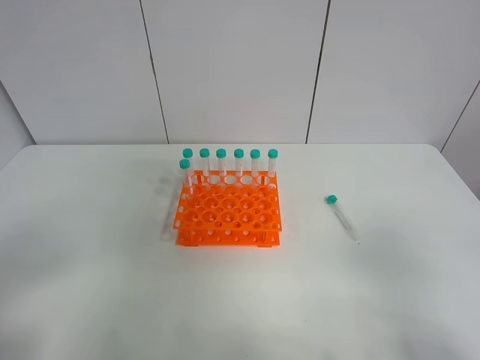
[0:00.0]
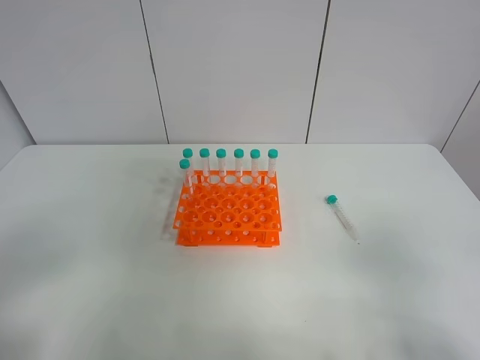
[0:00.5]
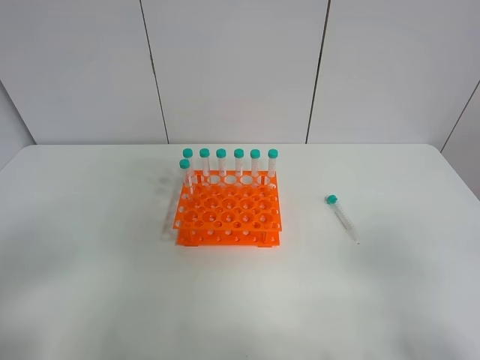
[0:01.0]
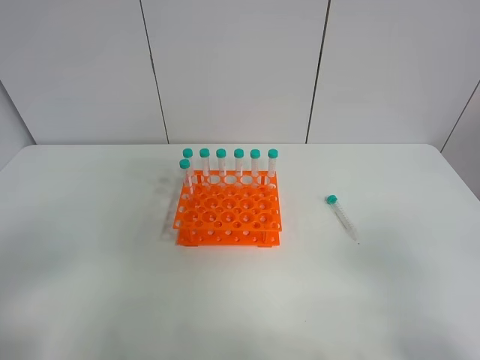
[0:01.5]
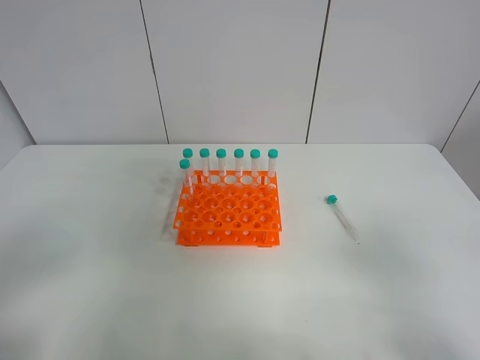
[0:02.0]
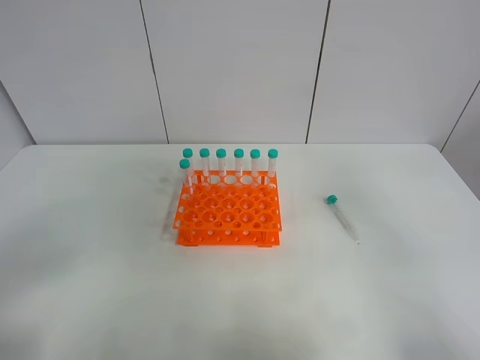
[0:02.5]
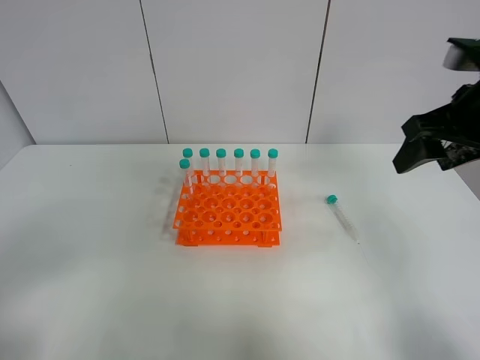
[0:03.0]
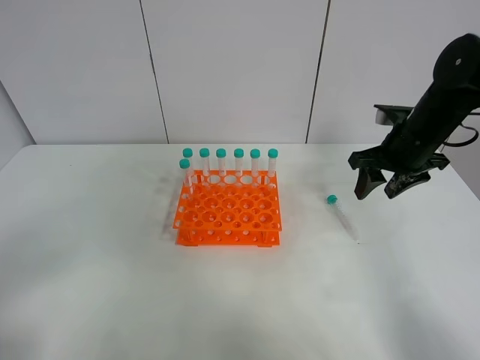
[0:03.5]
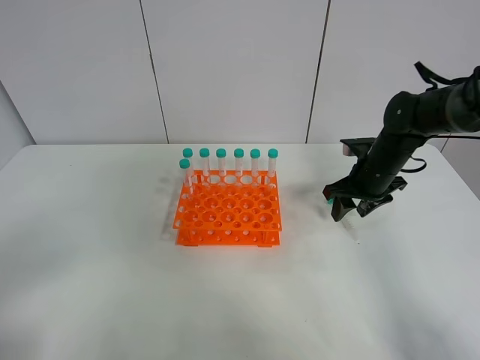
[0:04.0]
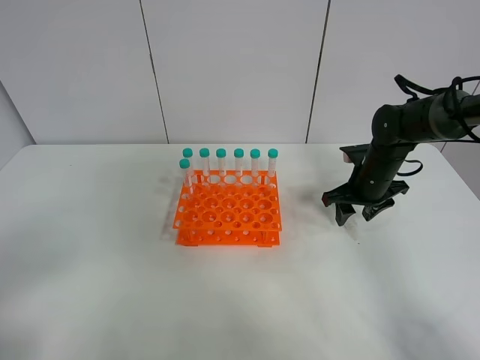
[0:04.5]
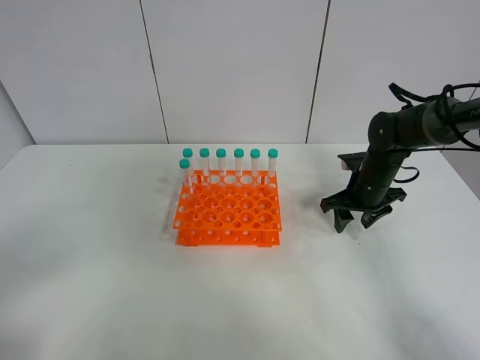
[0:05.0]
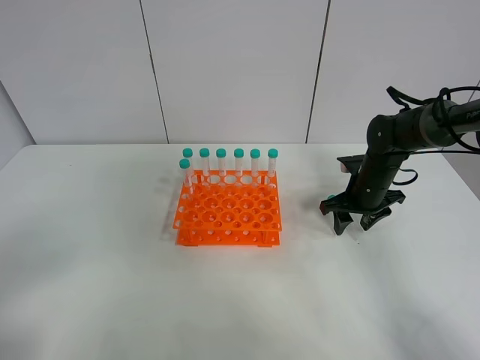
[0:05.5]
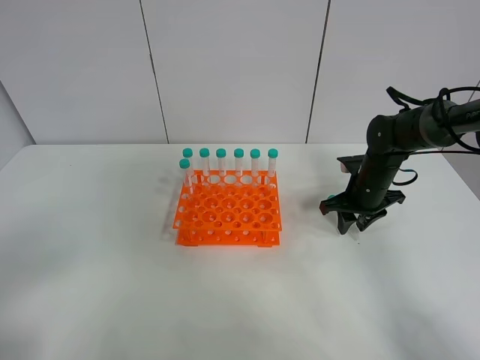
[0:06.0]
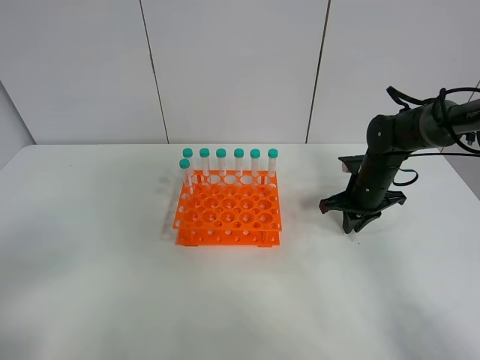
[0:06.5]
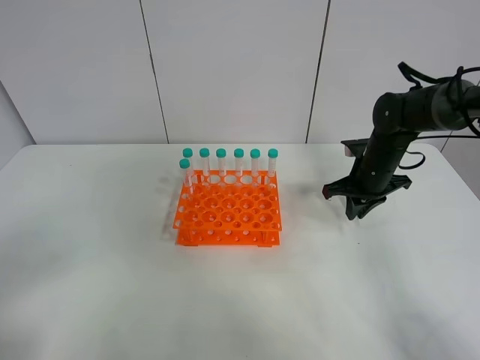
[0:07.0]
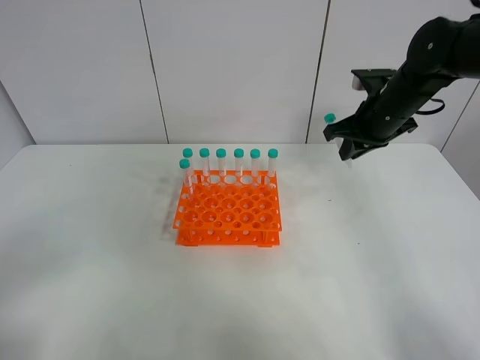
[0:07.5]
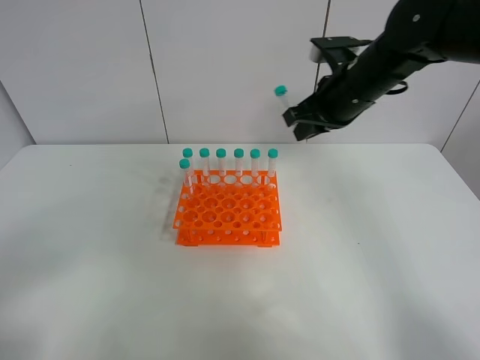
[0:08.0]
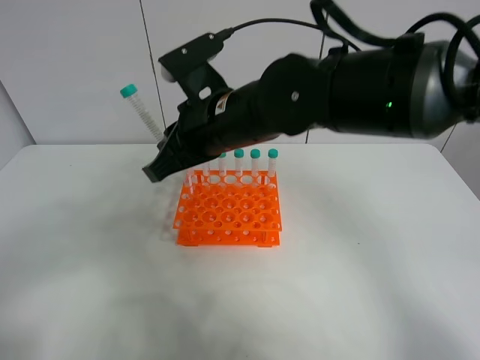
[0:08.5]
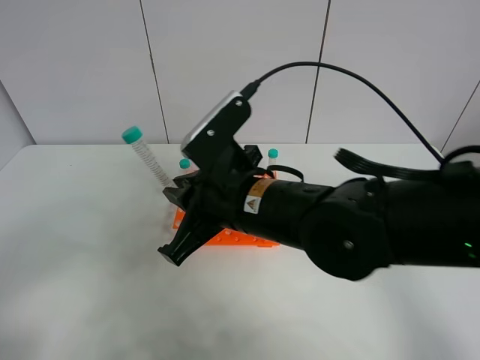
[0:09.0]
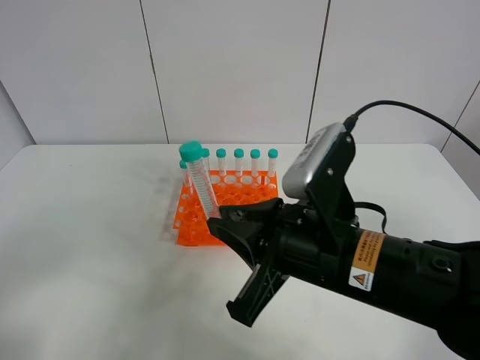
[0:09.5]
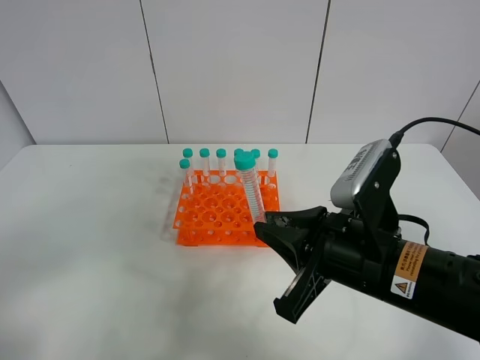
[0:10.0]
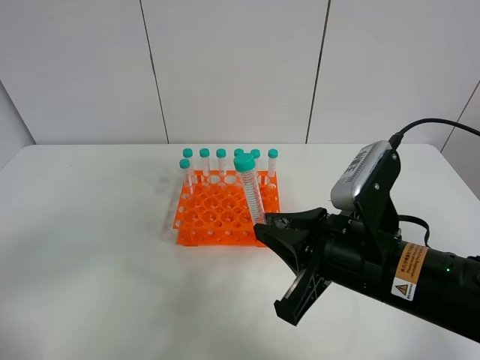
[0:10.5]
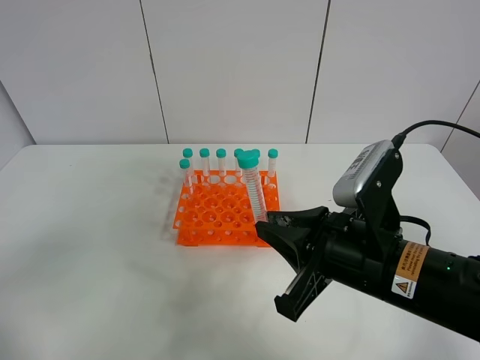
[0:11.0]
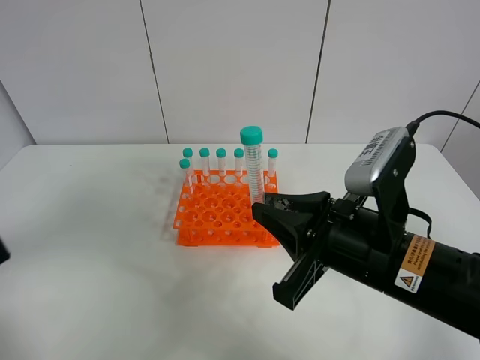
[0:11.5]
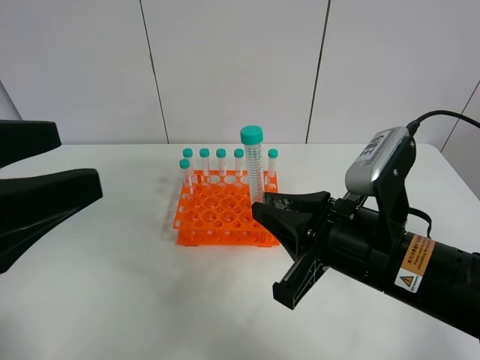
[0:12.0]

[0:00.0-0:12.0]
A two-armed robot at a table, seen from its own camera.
Task of the whole recording: Put the test tube on the table back onto the test tube rack.
Step, 0:00.0 to 0:06.0: Pick up the test tube with the right gripper.
0:02.0 to 0:04.0: The right gripper shifts some 40 cm forward.
0:04.0 to 0:06.0: The right gripper closes.
0:06.0 to 0:08.0: The right gripper travels upward and to the left by some 20 cm.
0:08.0 to 0:10.0: The right gripper goes approximately 20 cm backward.
0:10.0 to 0:12.0: The left gripper shifts roughly 15 cm forward, to the right and upward.

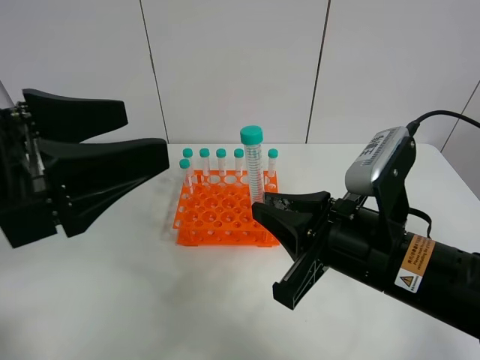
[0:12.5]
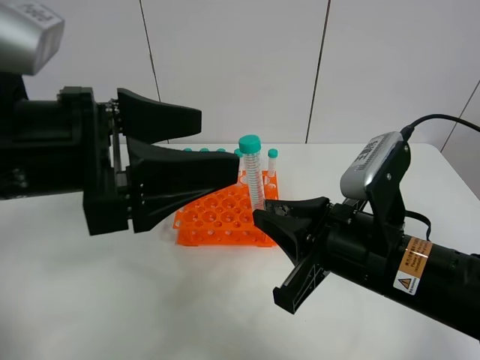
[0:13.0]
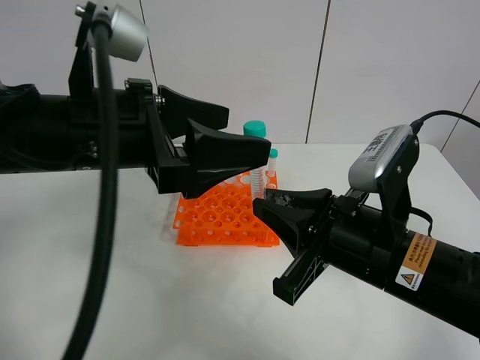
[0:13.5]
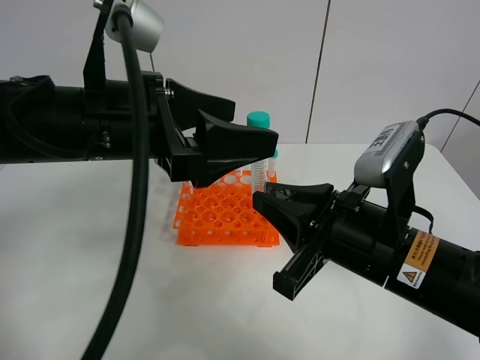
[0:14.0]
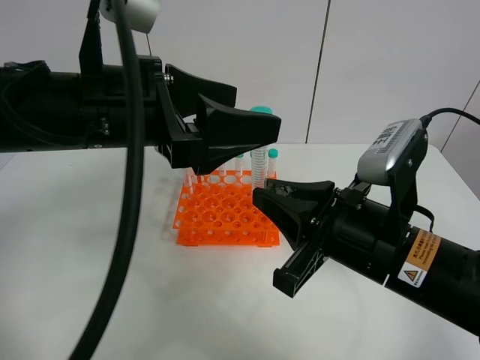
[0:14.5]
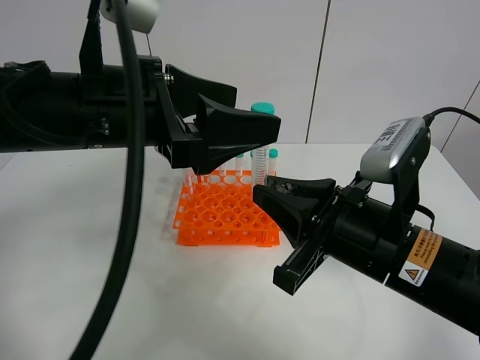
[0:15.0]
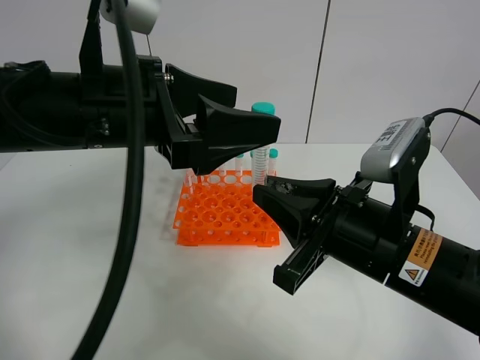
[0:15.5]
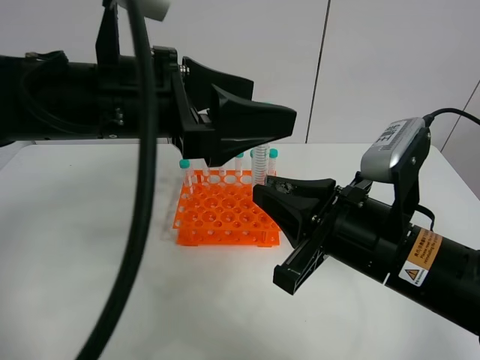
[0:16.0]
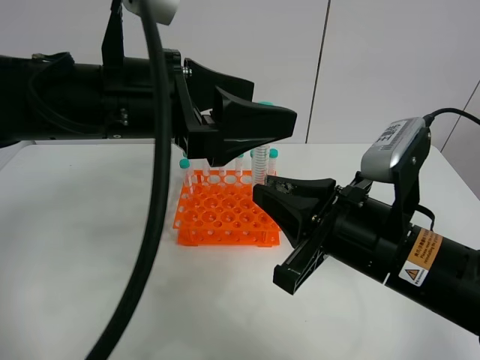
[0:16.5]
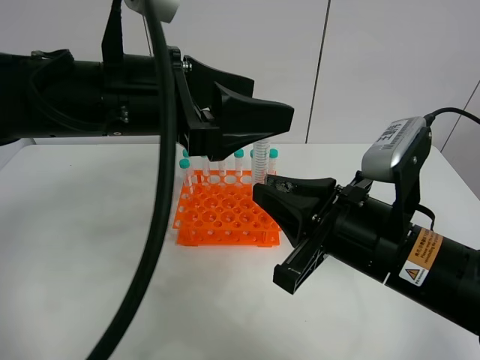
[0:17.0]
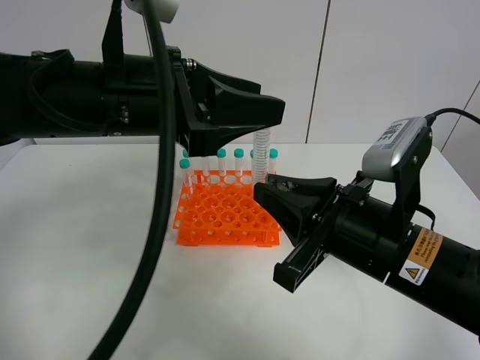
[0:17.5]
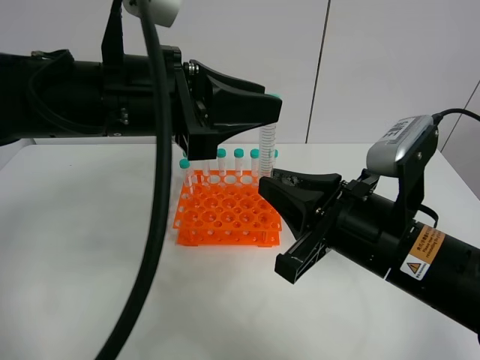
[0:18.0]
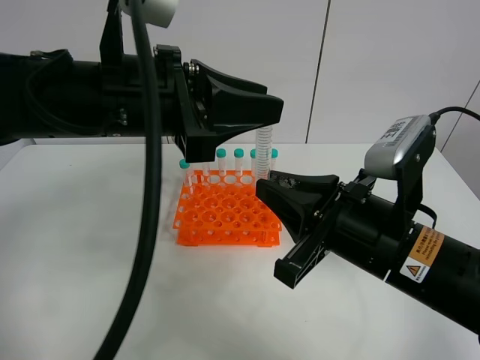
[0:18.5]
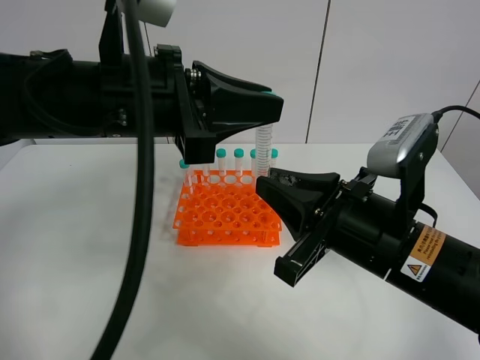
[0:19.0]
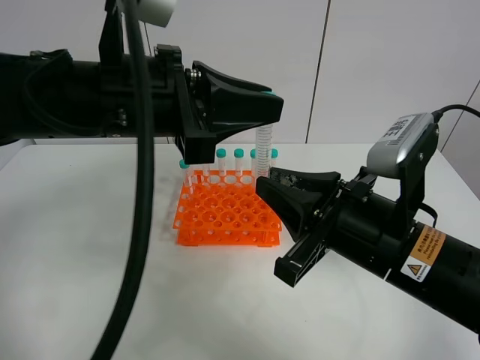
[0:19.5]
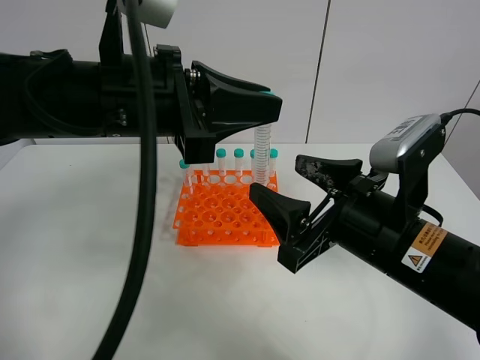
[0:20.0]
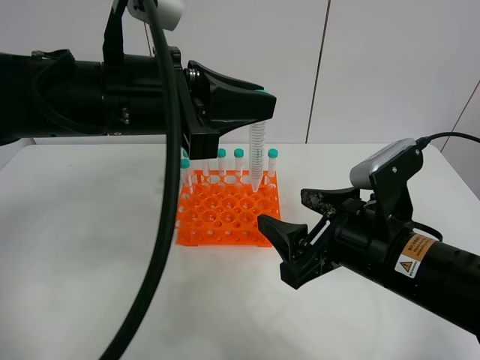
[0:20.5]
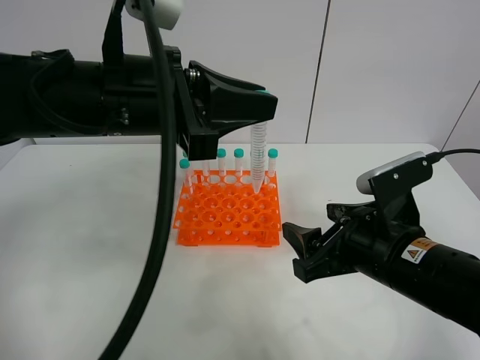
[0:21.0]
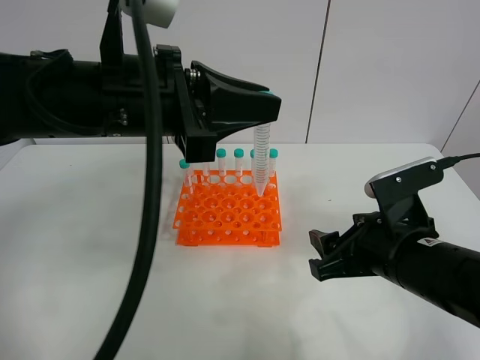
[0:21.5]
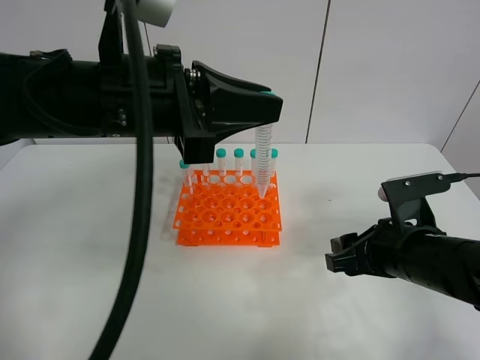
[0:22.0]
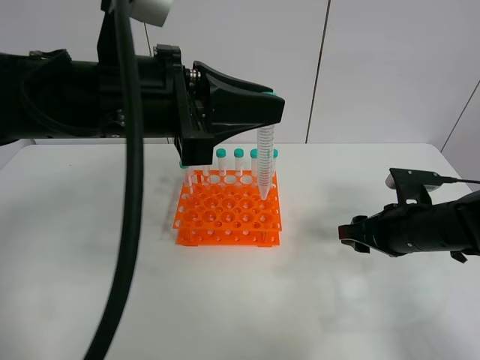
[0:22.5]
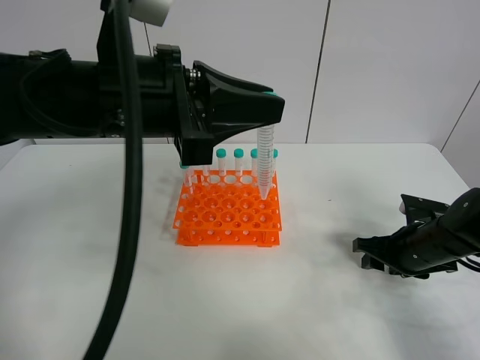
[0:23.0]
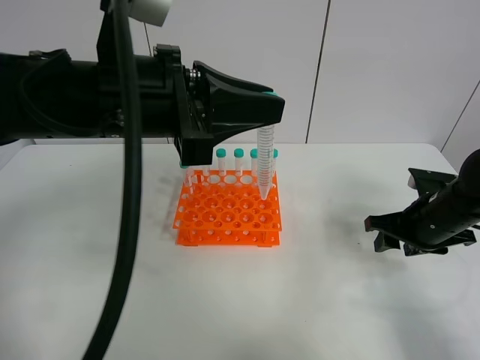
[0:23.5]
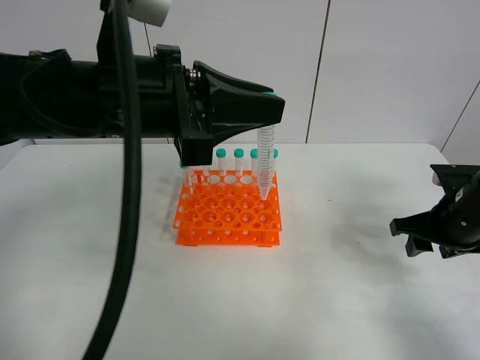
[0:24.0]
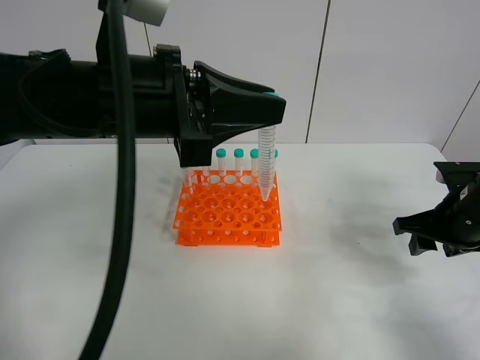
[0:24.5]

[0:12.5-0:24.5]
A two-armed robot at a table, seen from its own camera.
Task of the whole recording: Put the test tube on the table back onto the test tube rack.
Step, 0:12.5 to 0:18.5: Move the test tube from the right gripper to the left gripper.
0:12.5 to 0:14.5: The left gripper moves forward and to the right, about 10 cm.
0:14.5 to 0:16.5: The grippers stay close to where they were, moving slightly.
0:16.5 to 0:18.5: The left gripper closes up.
0:18.5 to 0:20.5: The right gripper opens.
0:20.5 to 0:22.5: The right gripper shifts roughly 15 cm to the right, forward and downward.
0:22.5 to 0:24.5: The right gripper shifts about 5 cm to the right.

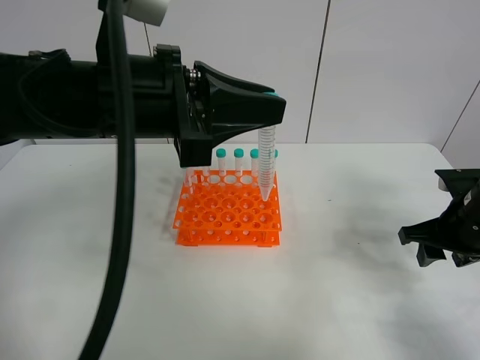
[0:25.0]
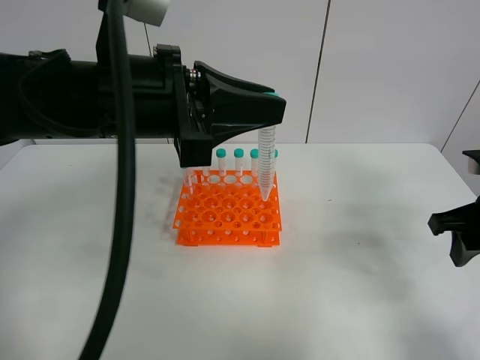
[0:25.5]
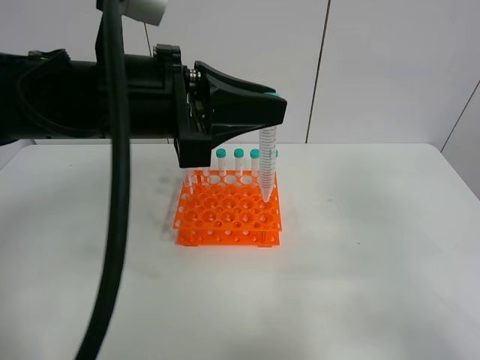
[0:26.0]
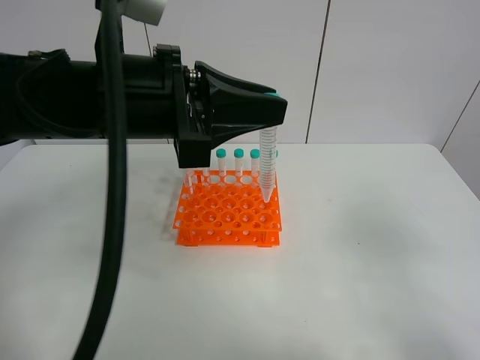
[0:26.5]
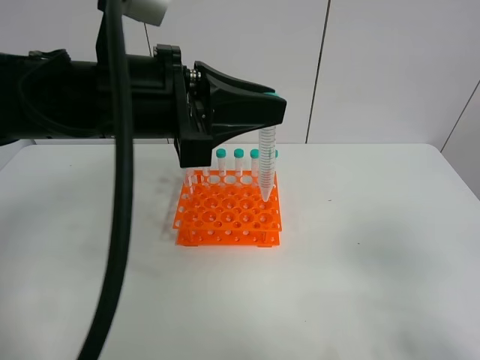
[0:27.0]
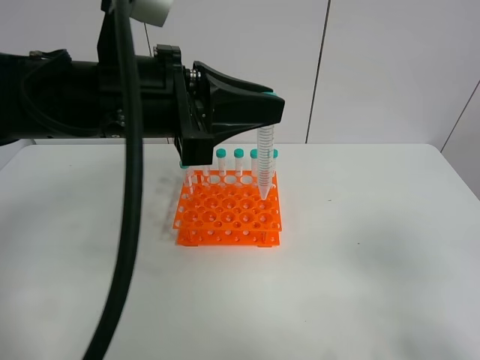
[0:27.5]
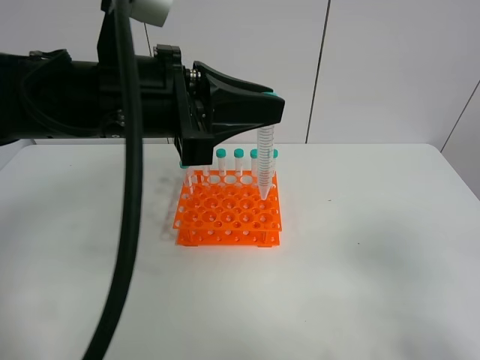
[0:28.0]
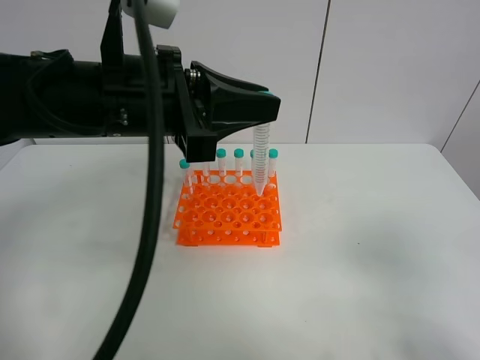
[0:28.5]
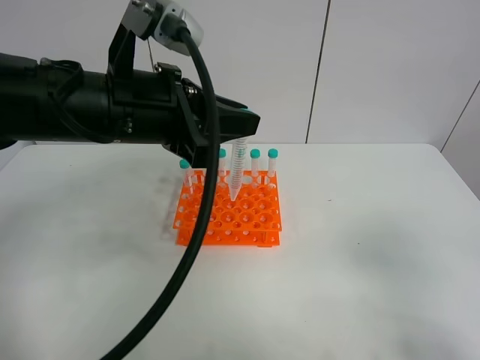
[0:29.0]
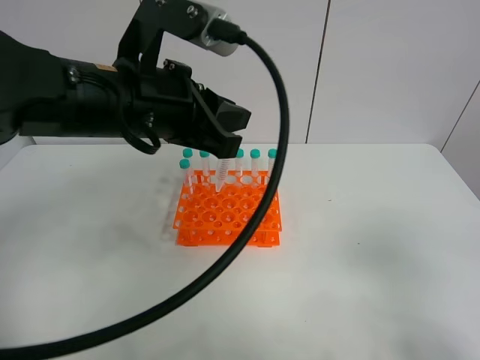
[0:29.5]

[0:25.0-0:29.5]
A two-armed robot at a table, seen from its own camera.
Task of the whole recording: Put the test tube on the table back onto the test tube rack.
0:25.0 to 0:27.0: The right gripper is displaced backward and upward by roughly 25 cm.
